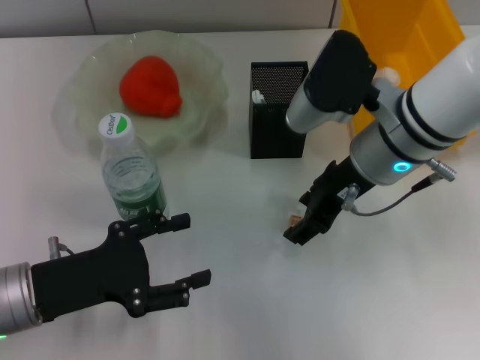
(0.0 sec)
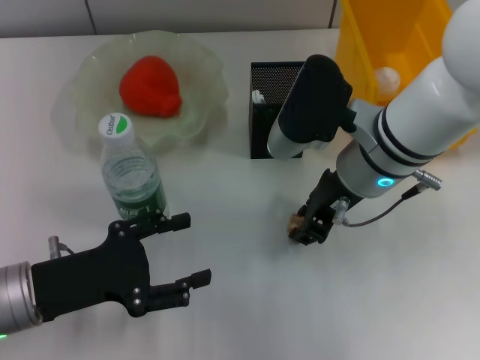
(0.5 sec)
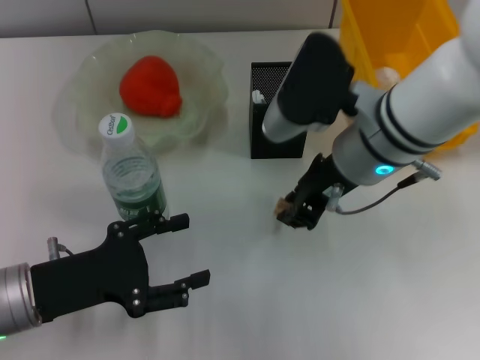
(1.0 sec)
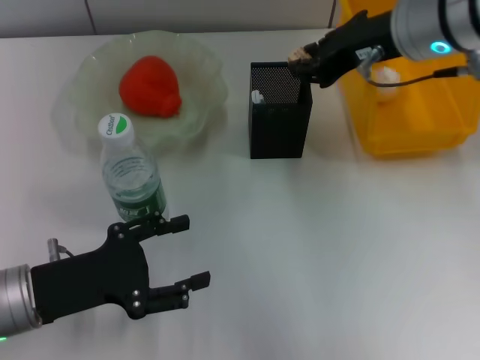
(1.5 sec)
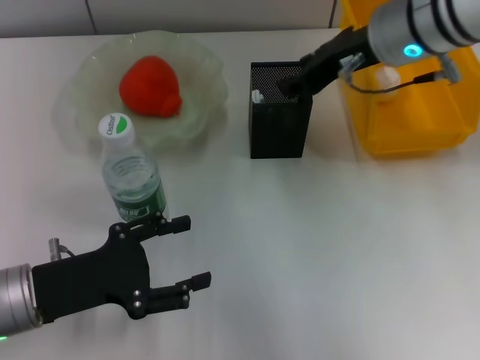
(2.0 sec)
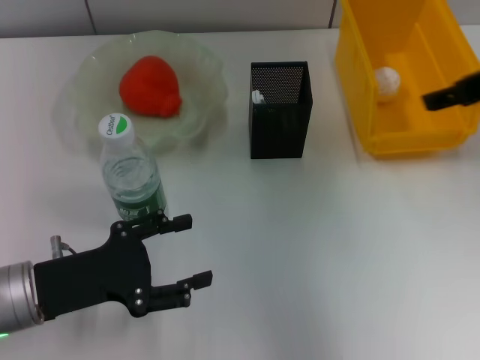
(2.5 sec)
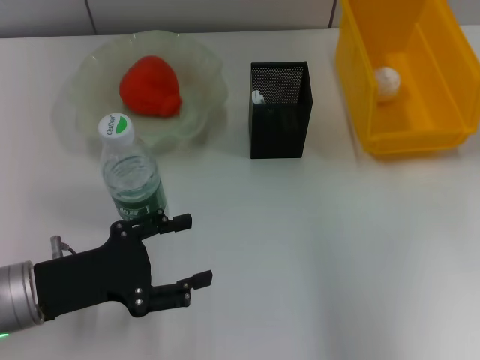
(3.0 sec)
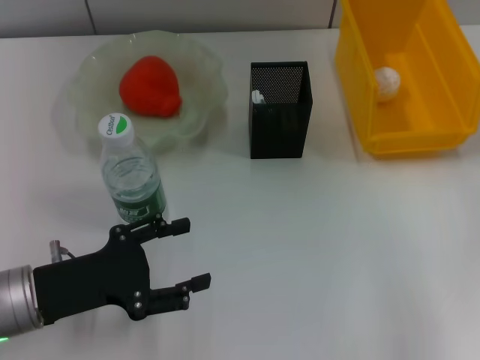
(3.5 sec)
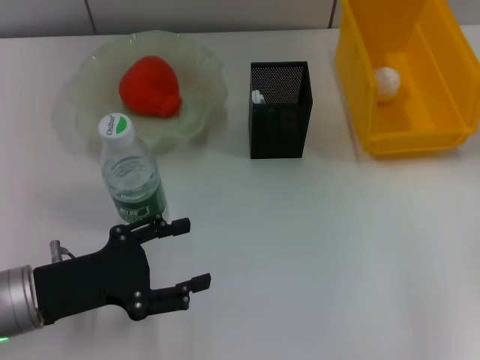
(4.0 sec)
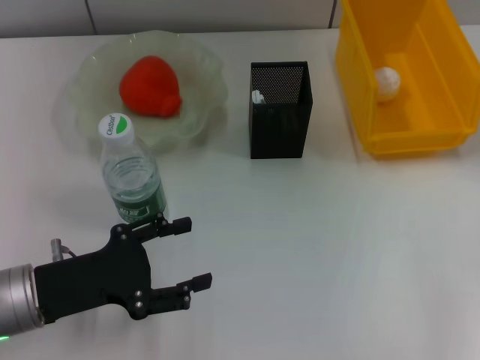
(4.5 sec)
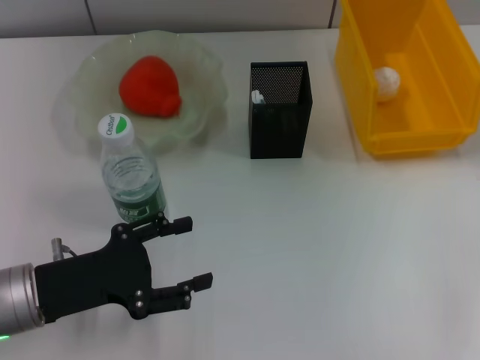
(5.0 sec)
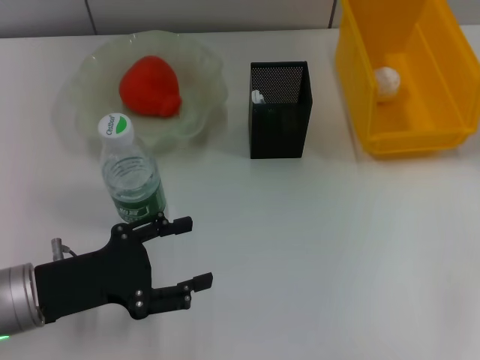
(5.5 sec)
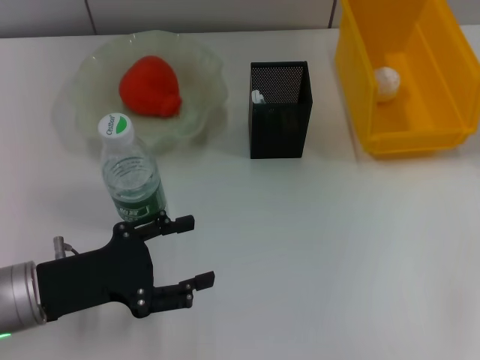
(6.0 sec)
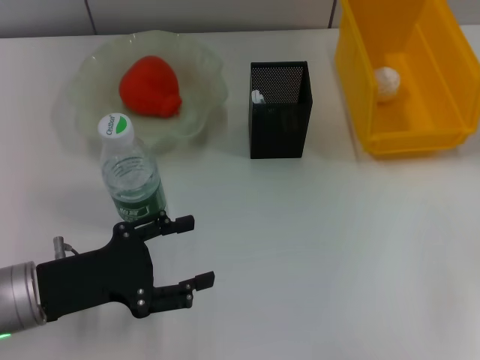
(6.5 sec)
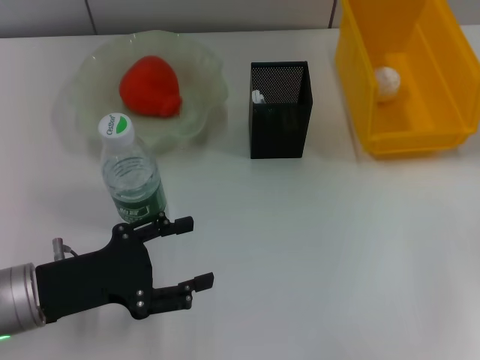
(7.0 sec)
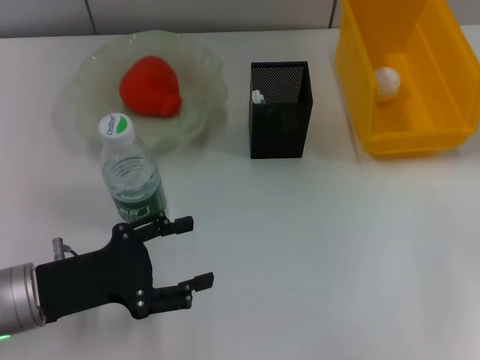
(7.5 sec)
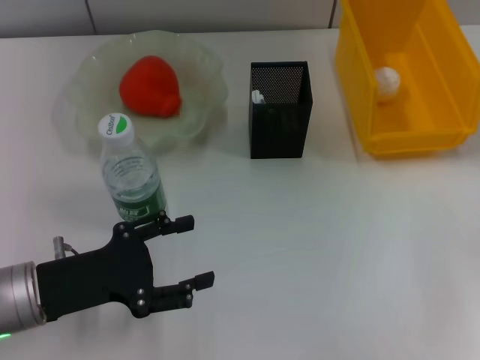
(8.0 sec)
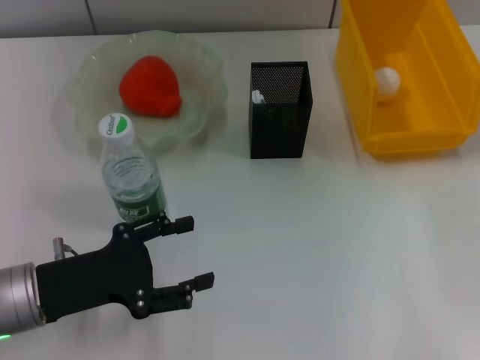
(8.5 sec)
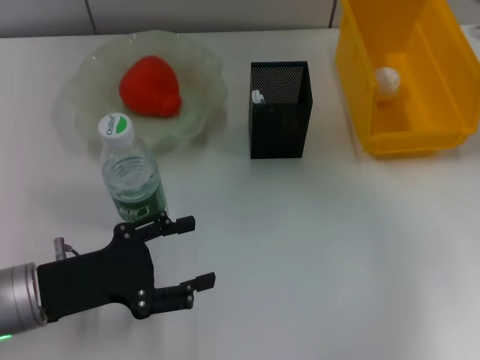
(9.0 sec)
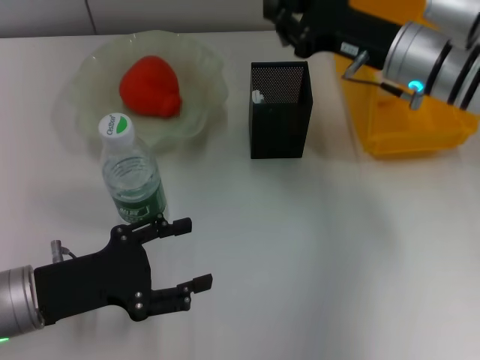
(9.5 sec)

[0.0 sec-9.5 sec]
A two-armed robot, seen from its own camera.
Step, 1.0 sec to 1.5 sec: Put the eraser into the pen holder with the right hand.
Step, 2.0 sec to 8.0 sec: Grab the gray glue with the right hand.
0.0 sec to 2.0 sec: The right gripper goes about 5 cm upward.
2.0 sec to 4.0 sec: The right gripper travels to the right by about 30 cm, and opens up.
7.5 sec to 9.5 sec: The right gripper heads to the left, covering about 25 cm.

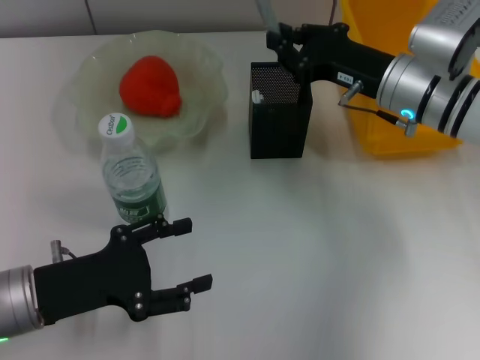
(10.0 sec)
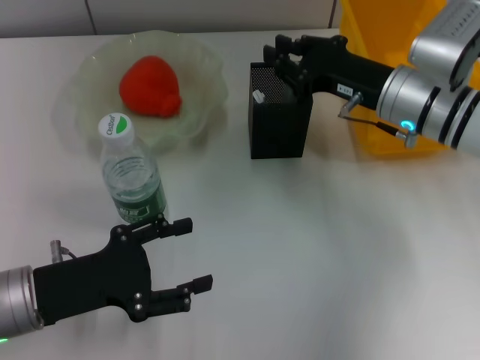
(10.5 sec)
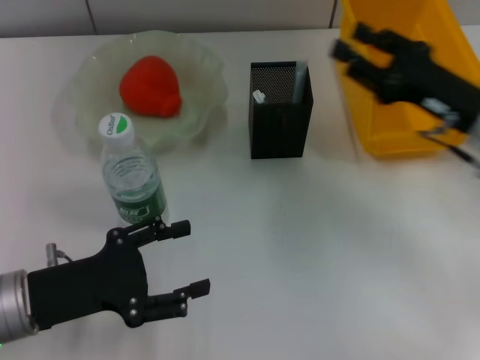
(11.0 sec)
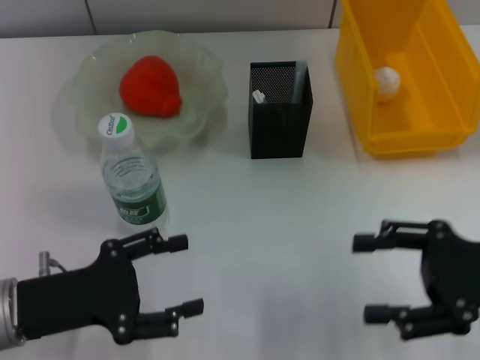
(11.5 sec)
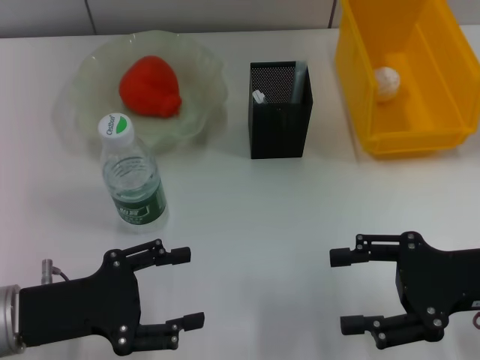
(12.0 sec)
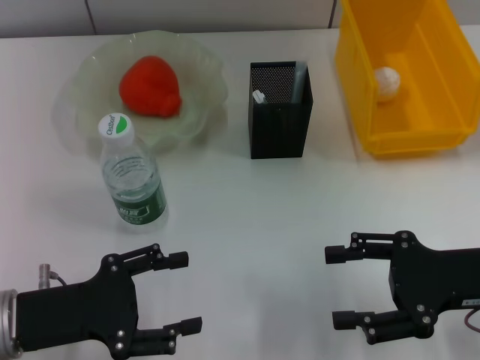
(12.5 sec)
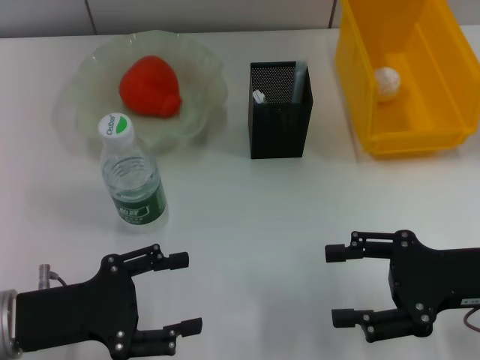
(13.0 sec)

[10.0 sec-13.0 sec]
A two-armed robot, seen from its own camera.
10.0 sec to 11.5 sec: The right gripper is displaced backward and to the right by about 20 cm, and opens up.
11.5 sec to 13.0 sec: The grippers move only a little.
